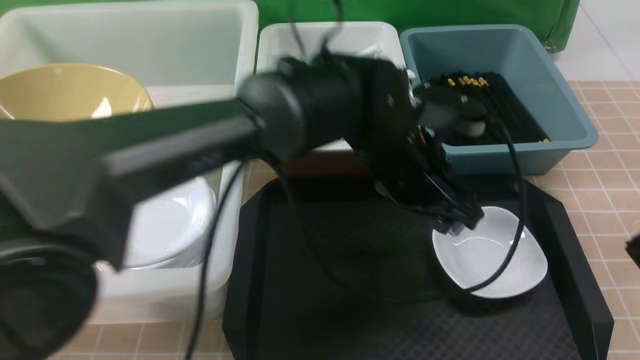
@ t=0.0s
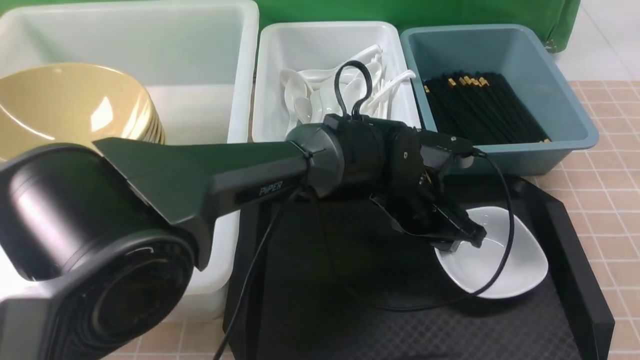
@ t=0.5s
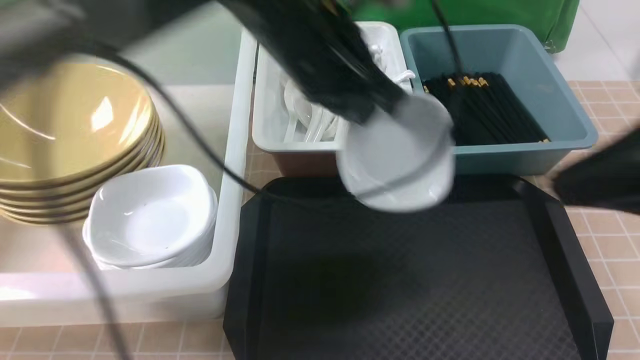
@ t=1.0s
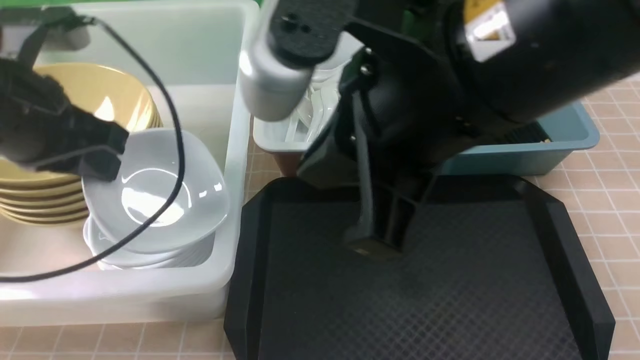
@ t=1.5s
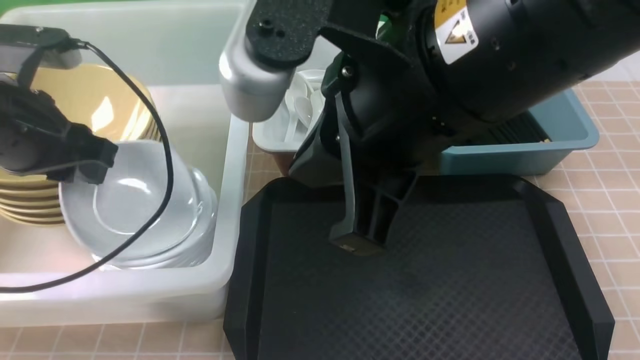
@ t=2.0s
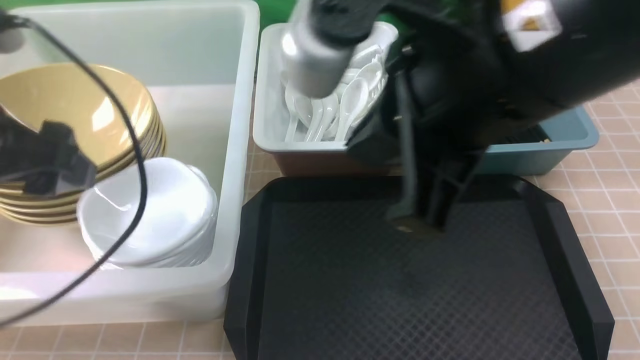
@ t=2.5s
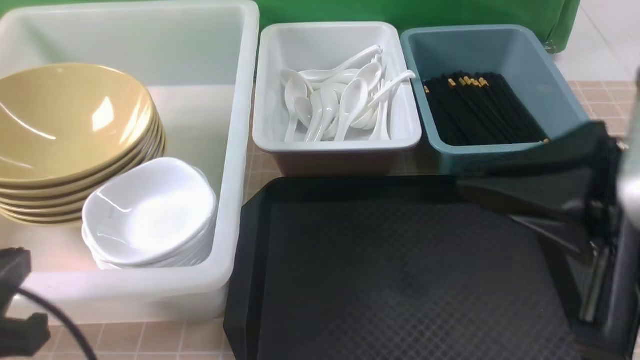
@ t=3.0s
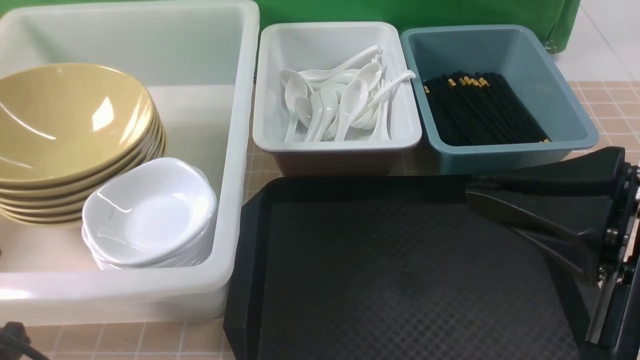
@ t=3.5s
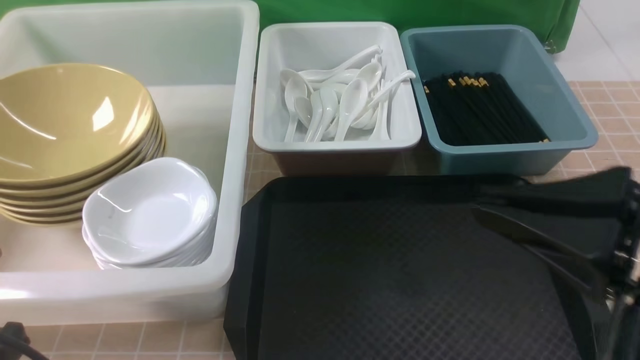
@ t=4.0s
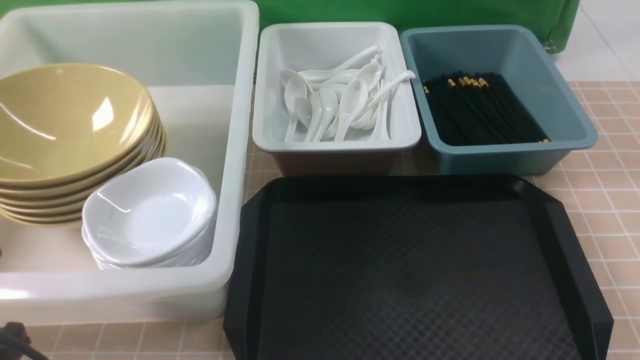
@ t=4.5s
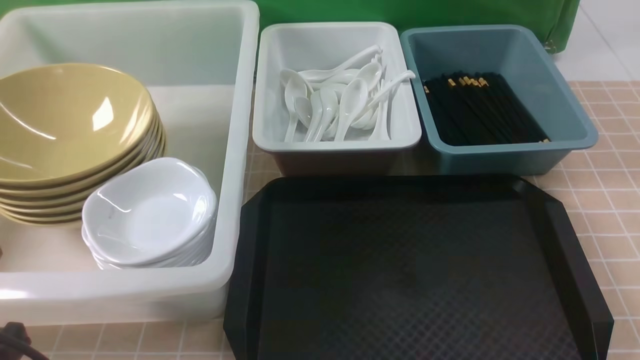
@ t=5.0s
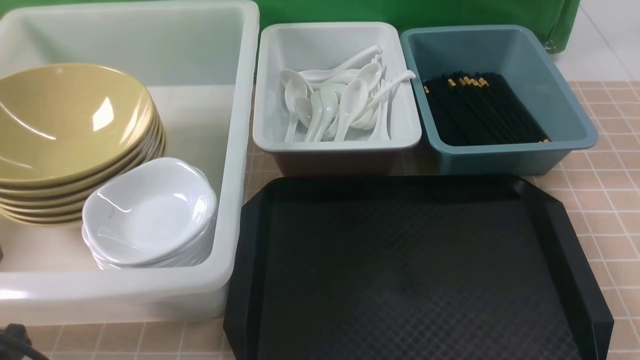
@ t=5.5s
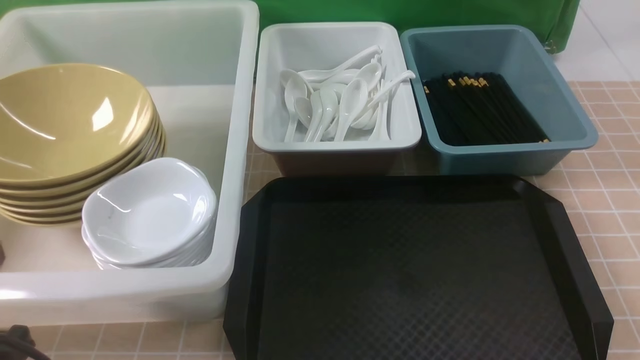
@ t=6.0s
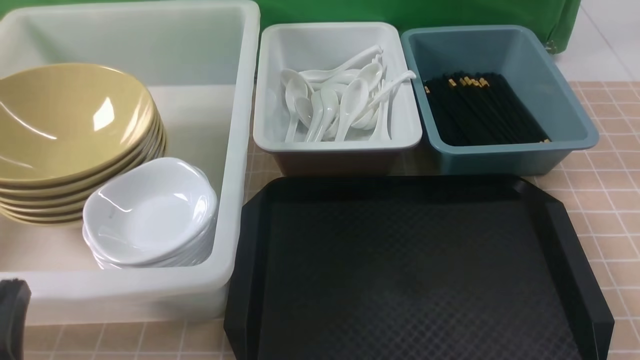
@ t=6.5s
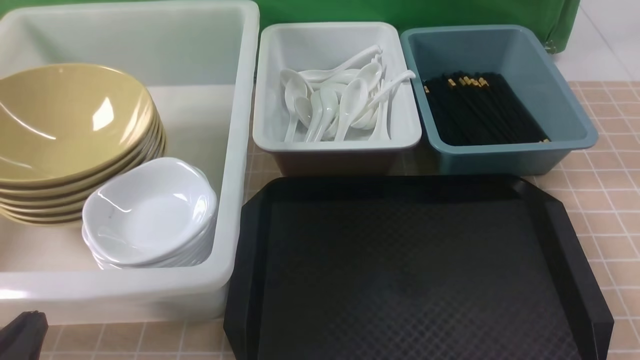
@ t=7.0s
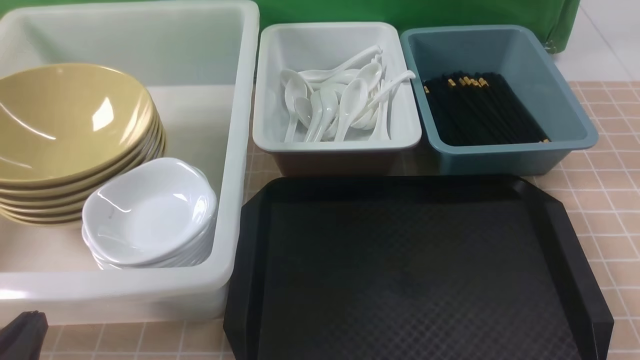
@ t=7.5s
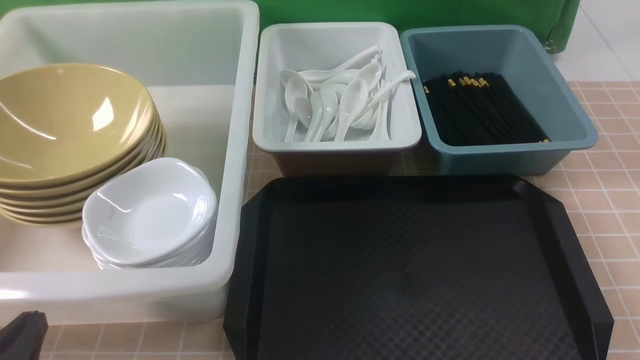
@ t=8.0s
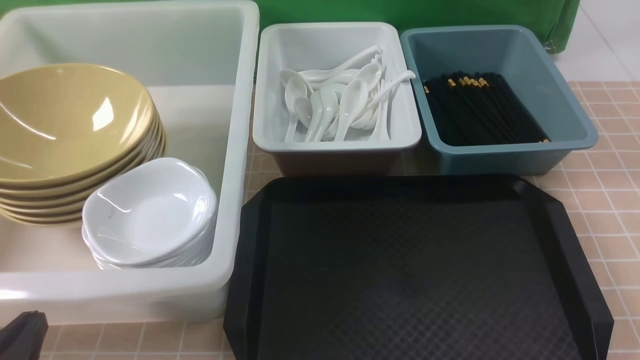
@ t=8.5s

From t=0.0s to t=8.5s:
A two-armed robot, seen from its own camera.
Task of the whole recording: on brown table put chopsticks spoon bowls plates into blue grey white boxes.
Step, from t=1.0s to t=2.0s: use the left arm to put the plate into the large storage box on the left.
From t=0.0s to t=2.0s: The right gripper moves to the left, about 20 cm. Meanwhile the left gripper shifts some 30 cm to the left, and closes up.
From t=2.0s to t=4.0s: The right gripper goes about 20 cm to the right, backward and downward; the left gripper heads backward, covering some 20 cm, and closes its fingers.
From t=4.0s to t=6.5s: The right gripper shifts roughly 20 cm downward and to the right, while the left gripper heads downward, covering roughly 10 cm.
From t=6.5s to t=8.5s: The grippers make only small movements.
